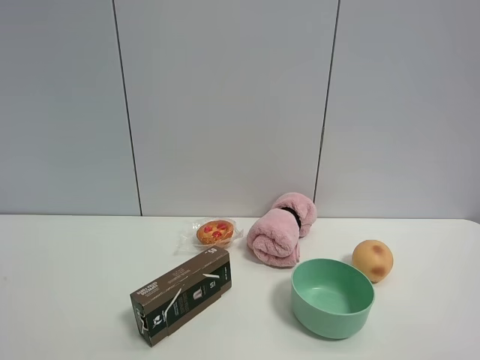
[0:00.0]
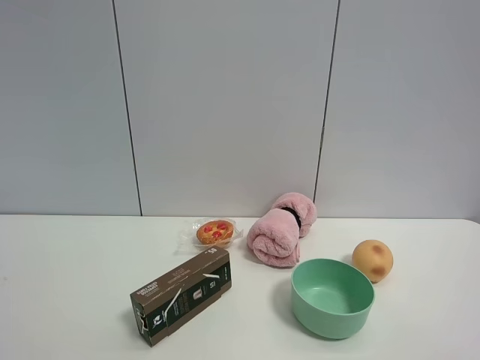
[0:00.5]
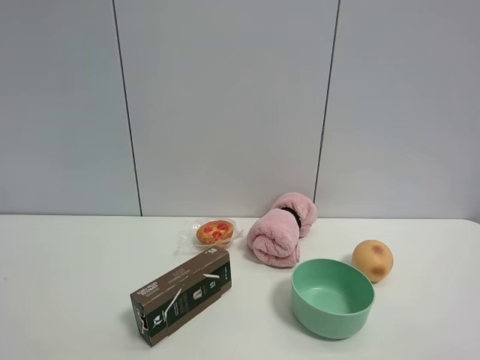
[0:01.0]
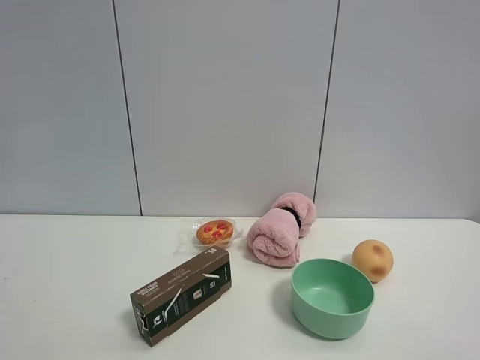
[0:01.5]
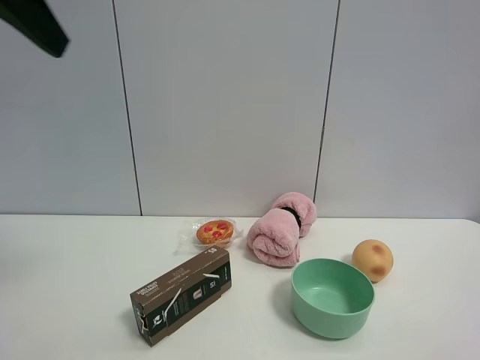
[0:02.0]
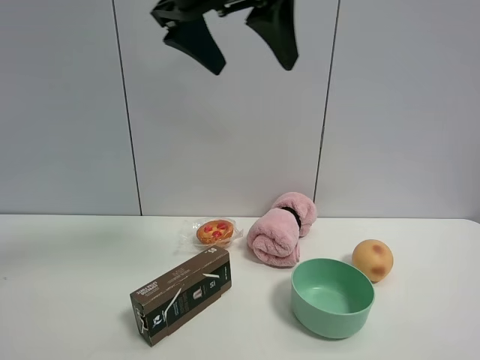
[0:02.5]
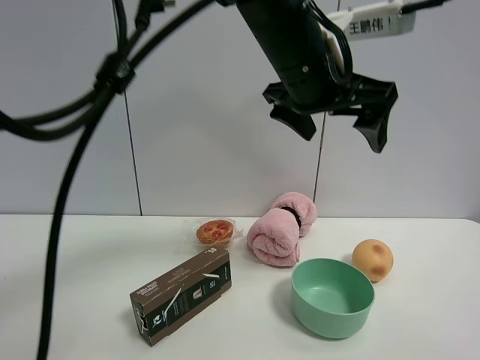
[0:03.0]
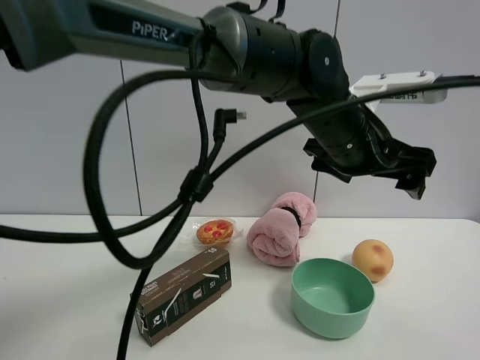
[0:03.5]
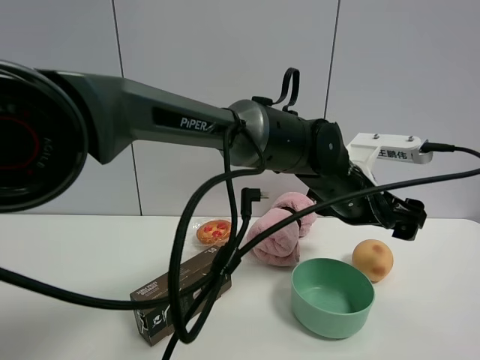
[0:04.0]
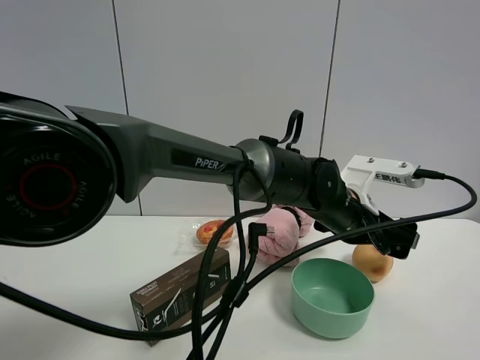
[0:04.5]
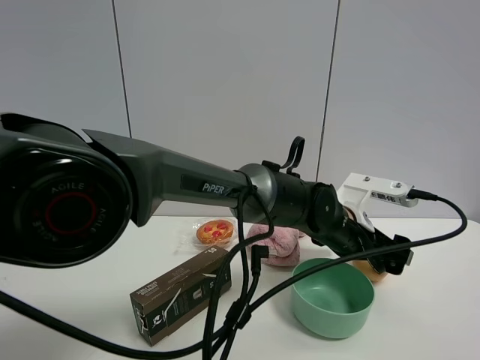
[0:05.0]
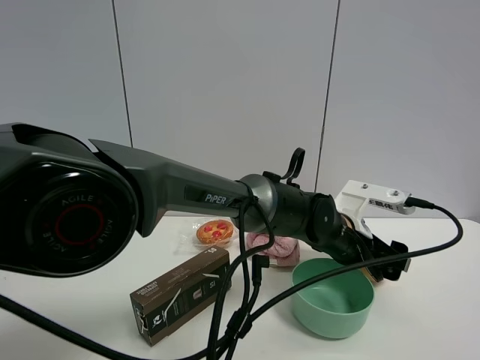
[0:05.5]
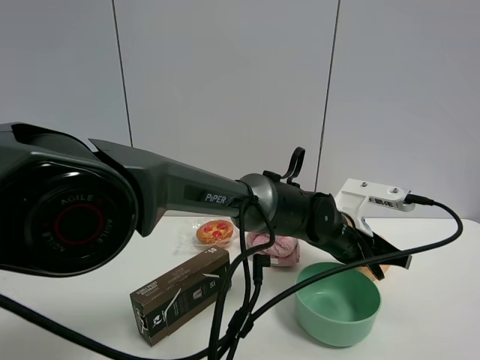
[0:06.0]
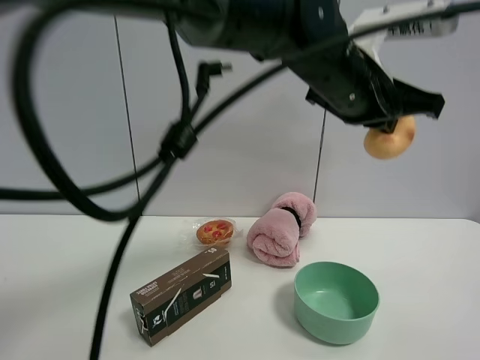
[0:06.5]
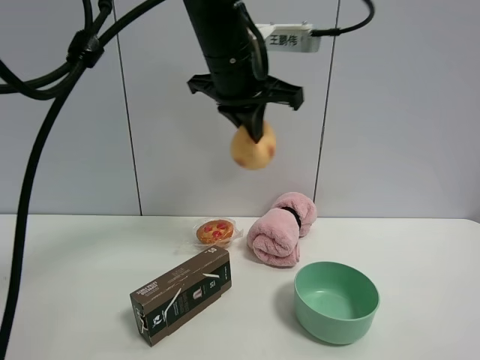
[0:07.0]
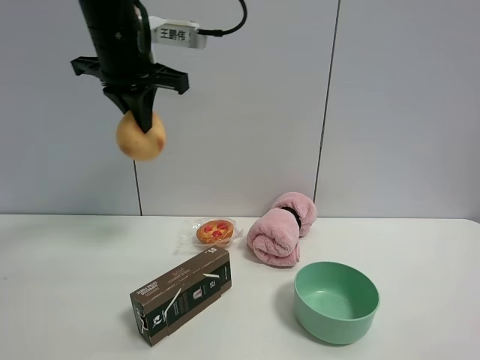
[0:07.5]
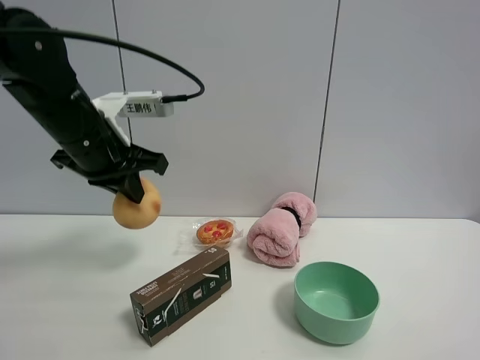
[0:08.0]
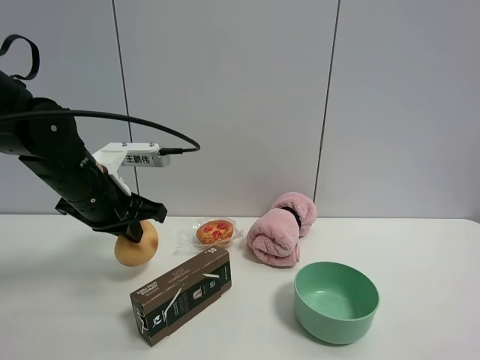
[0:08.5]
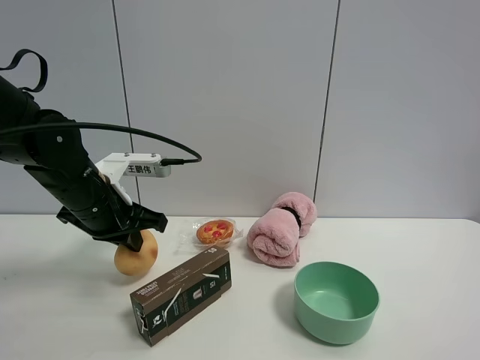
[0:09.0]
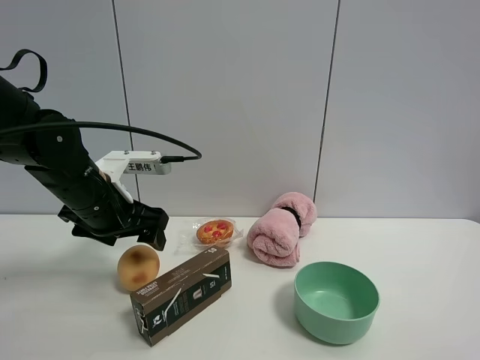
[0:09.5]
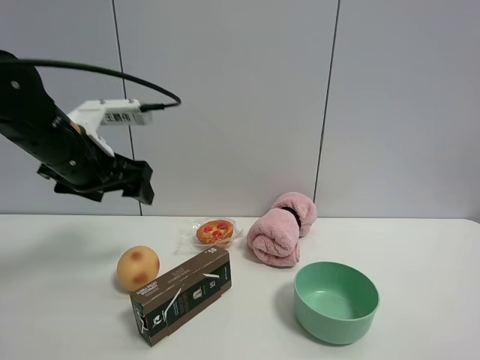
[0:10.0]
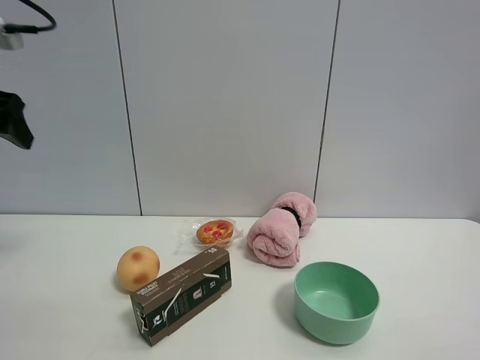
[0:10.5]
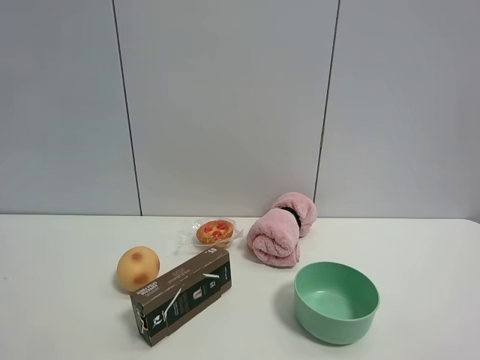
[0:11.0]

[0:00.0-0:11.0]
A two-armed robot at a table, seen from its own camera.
Task of the whole recording: the gripper move the object.
Step, 0:00.0 to 0:05.5: Grasp the egg yolk pastry with the left gripper.
Step, 0:06.0 to 0:10.0: Place the egg yolk pastry on the table with the left gripper.
0:00.0 to 0:02.0: The left gripper is displaced forward and upward by approximately 25 cm.
0:02.0 to 0:03.5: The left gripper travels to the right and downward by some 40 cm.
0:03.5 to 0:05.5: The left gripper moves downward, approximately 15 cm.
0:05.5 to 0:07.5: The left gripper goes about 40 cm to the left and upward, and closes up.
0:07.5 to 0:09.0: The left gripper goes about 20 cm downward.
0:09.0 to 0:11.0: The left gripper goes about 30 cm upward, to the left and backward, and opens its fingers.

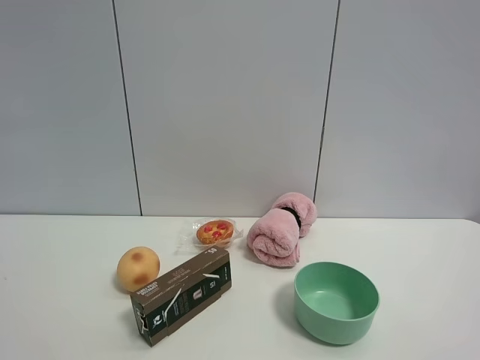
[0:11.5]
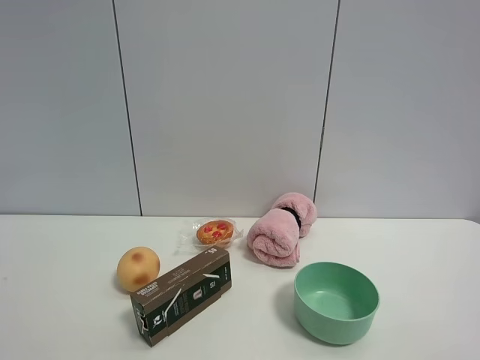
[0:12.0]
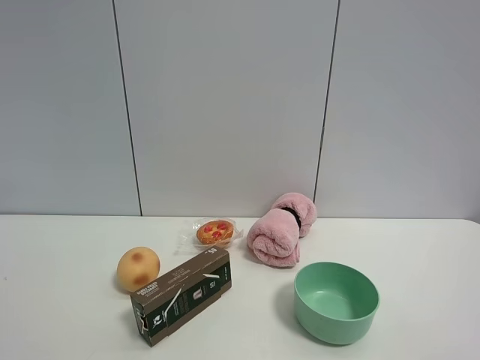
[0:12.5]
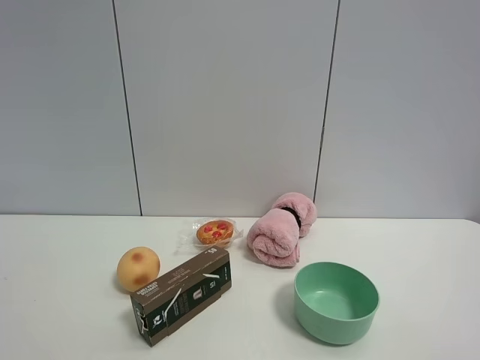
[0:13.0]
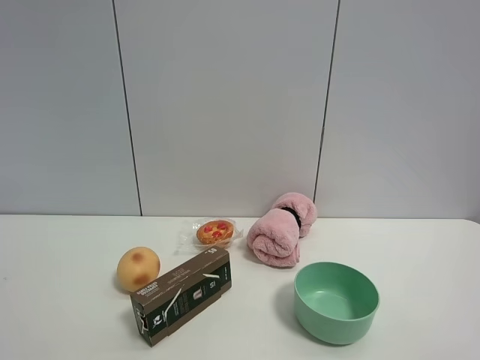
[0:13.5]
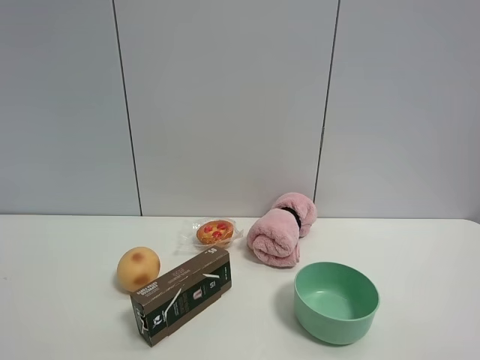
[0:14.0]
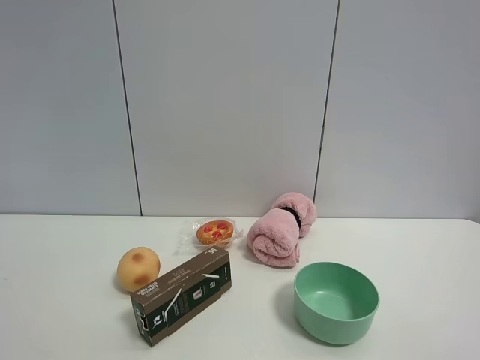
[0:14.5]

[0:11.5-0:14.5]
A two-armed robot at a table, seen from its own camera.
Task of the whole recording: the gripper move the object.
0:13.0 to 0:14.5: Neither gripper changes place.

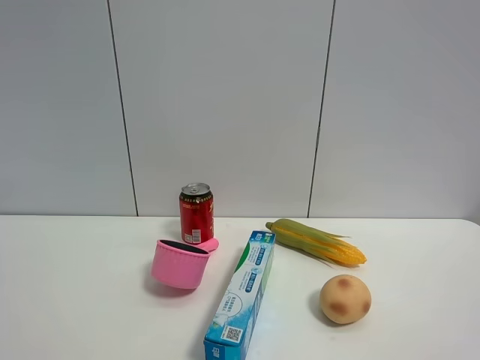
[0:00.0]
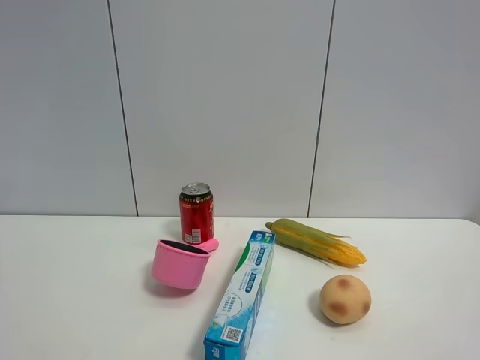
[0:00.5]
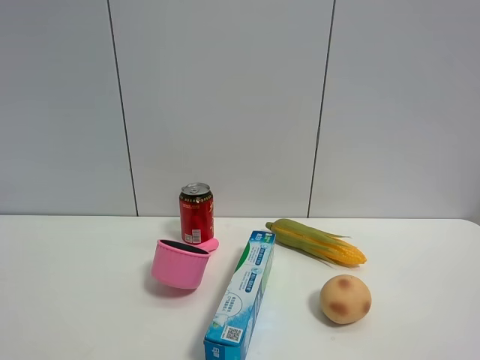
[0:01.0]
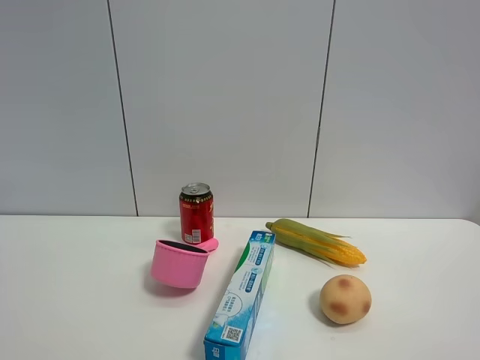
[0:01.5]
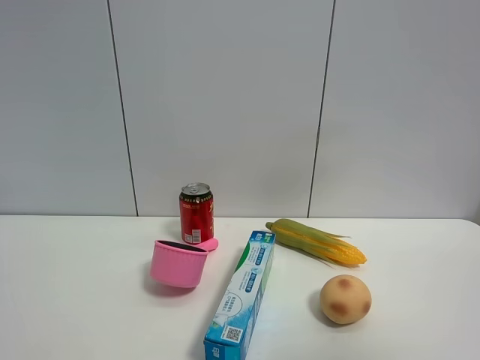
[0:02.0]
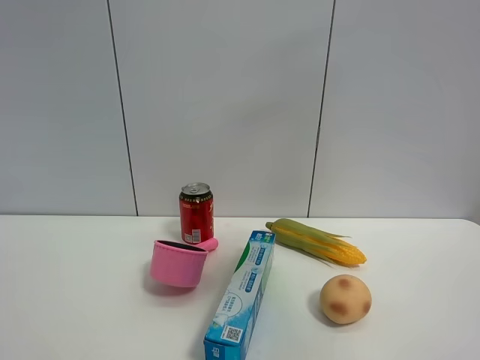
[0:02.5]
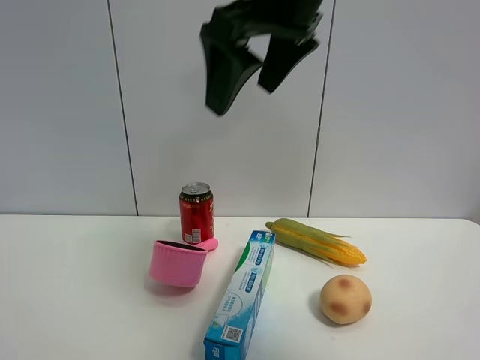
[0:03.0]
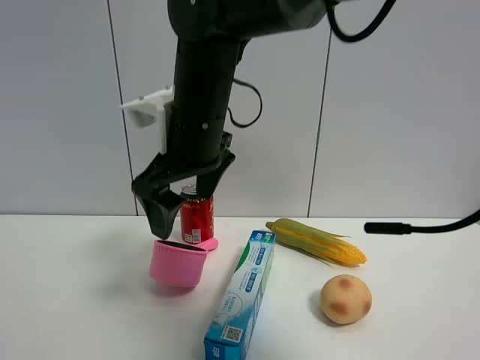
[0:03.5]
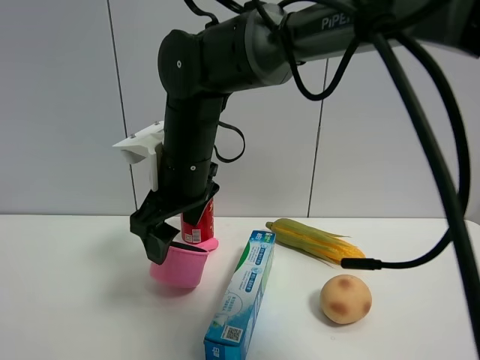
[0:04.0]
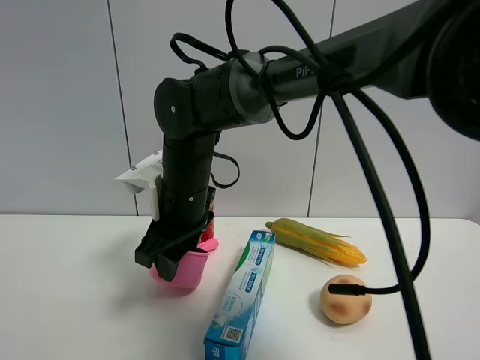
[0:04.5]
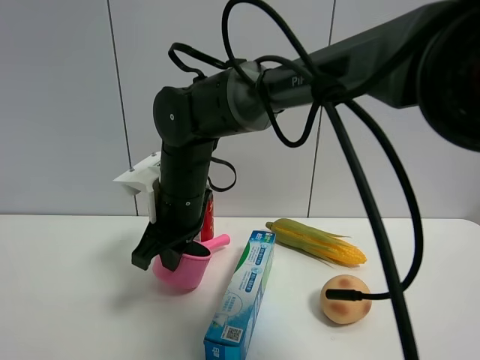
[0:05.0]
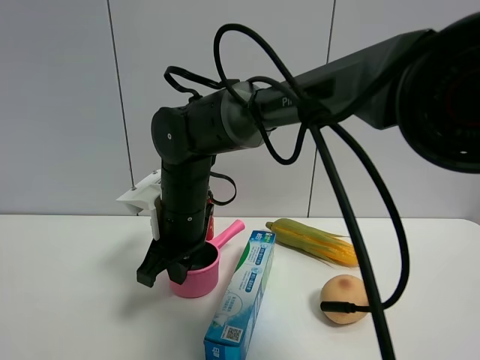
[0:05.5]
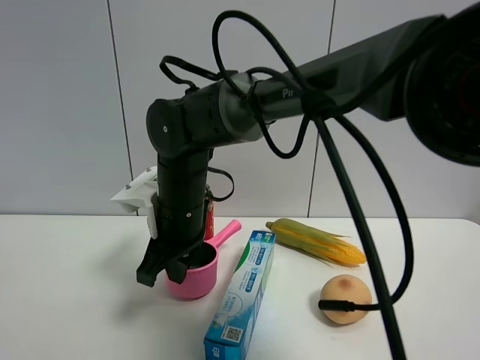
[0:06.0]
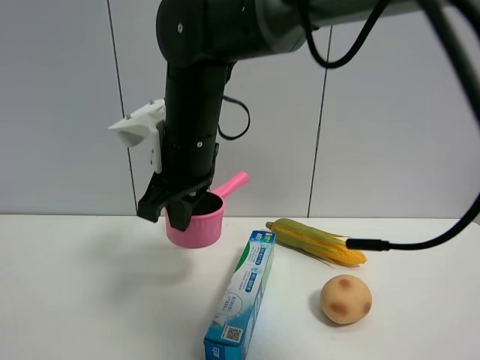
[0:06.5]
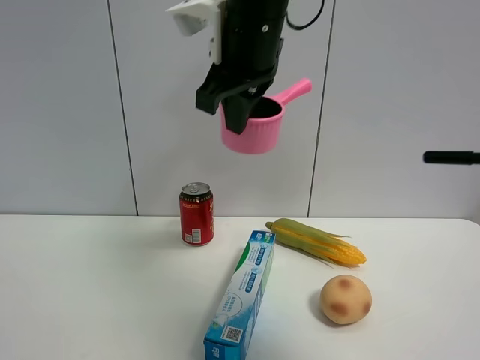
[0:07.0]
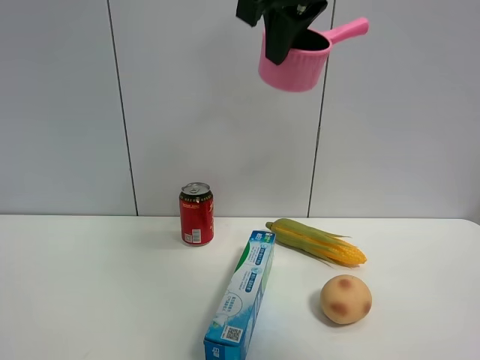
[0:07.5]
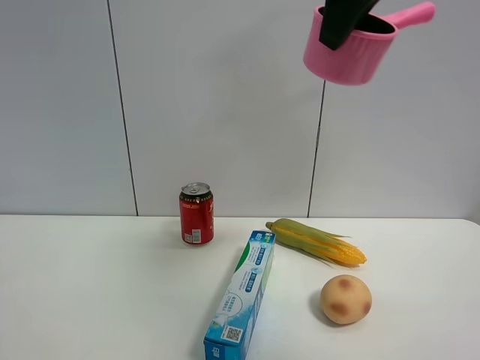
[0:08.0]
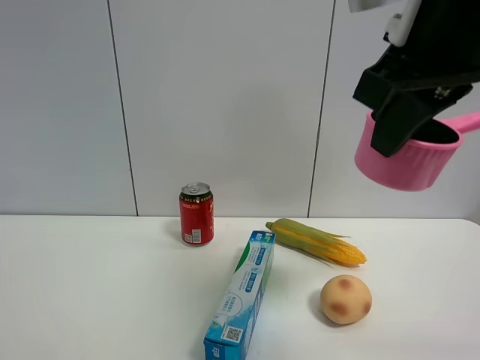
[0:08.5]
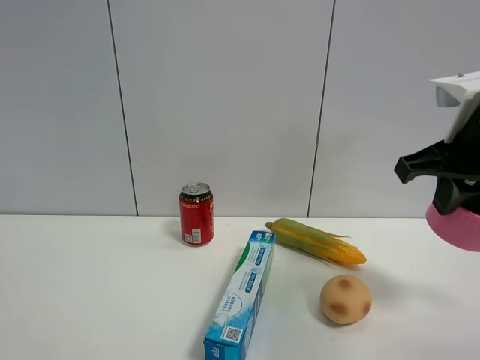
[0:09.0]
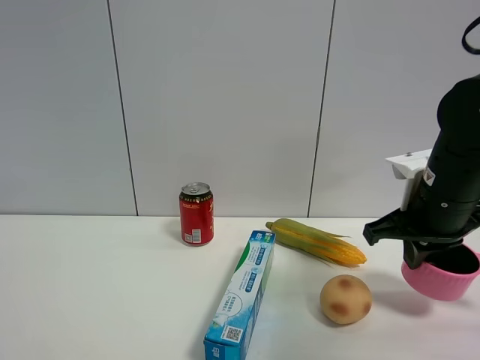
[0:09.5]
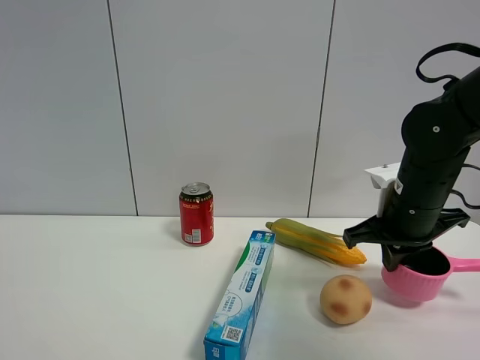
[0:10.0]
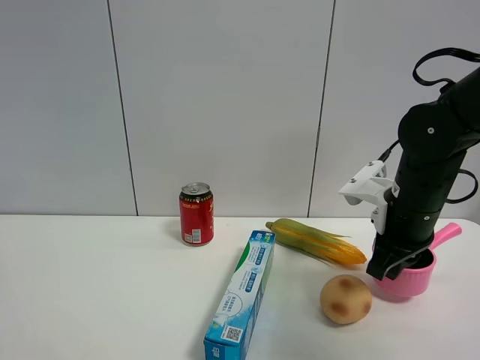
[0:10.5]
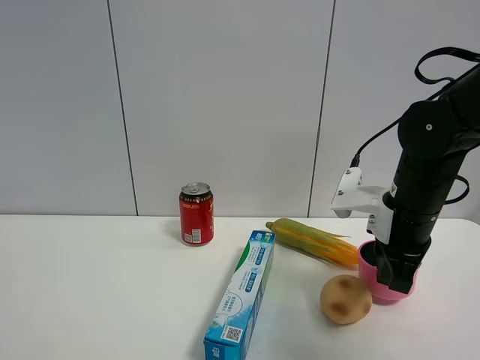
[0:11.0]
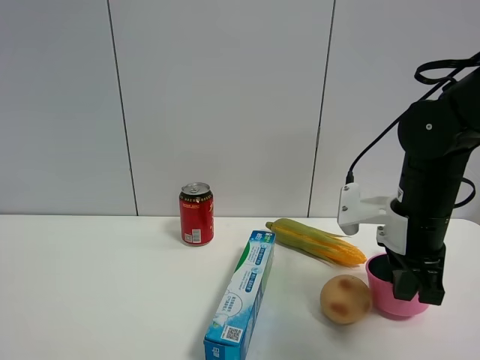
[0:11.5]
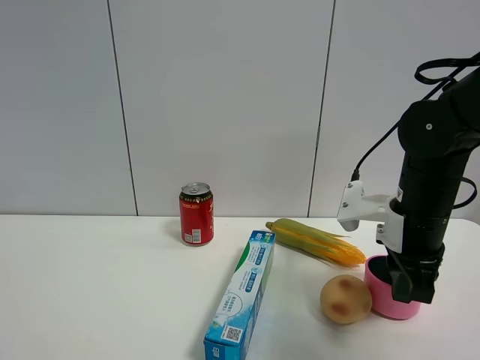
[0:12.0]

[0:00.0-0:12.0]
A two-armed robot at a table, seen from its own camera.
Task of the whole recording: the gripper move the object.
Step, 0:00.0 to 0:05.0: Grasp the pink pot with the right gripper.
0:00.0 to 0:02.0: The right gripper goes some 10 cm upward.
0:02.0 to 0:04.0: The right gripper shifts about 50 cm to the left, forward and downward.
0:04.0 to 0:06.0: The right gripper travels downward by roughly 5 cm, and closes its fingers.
0:06.0 to 0:08.0: The right gripper goes about 35 cm upward and to the right.
0:08.0 to 0:10.0: The right gripper moves downward, roughly 25 cm.
